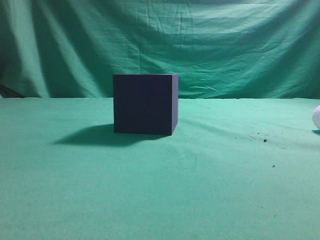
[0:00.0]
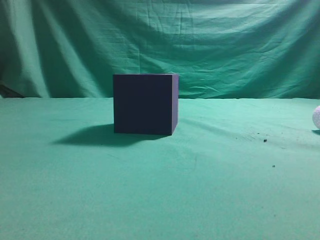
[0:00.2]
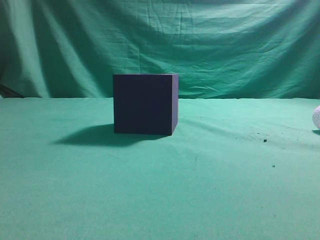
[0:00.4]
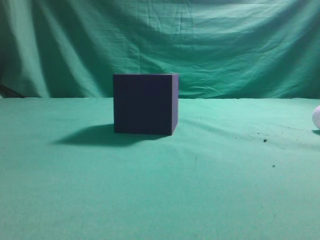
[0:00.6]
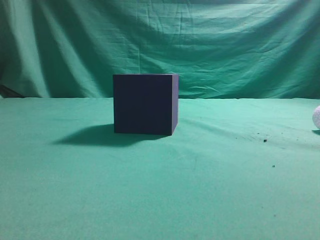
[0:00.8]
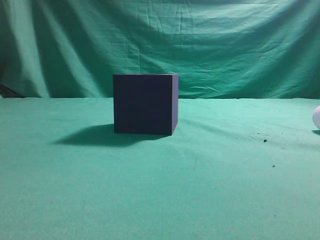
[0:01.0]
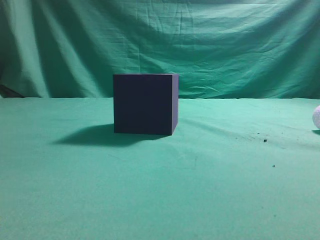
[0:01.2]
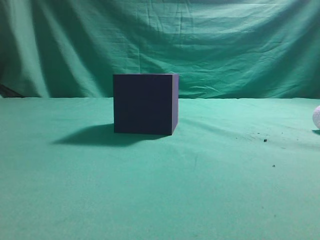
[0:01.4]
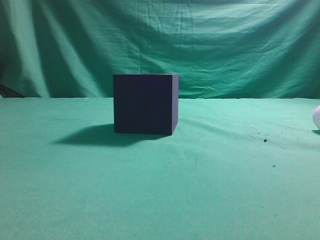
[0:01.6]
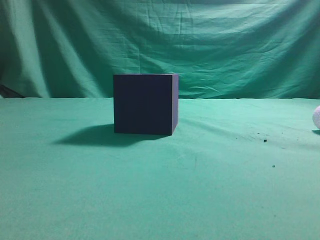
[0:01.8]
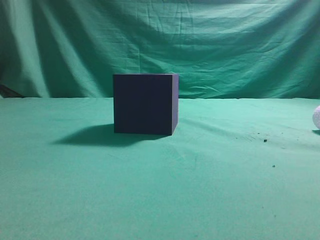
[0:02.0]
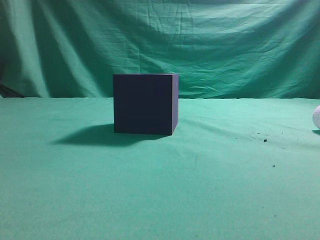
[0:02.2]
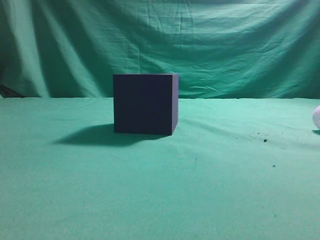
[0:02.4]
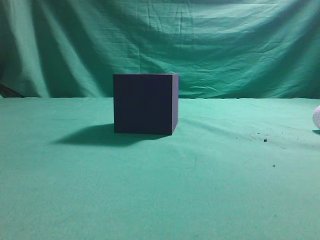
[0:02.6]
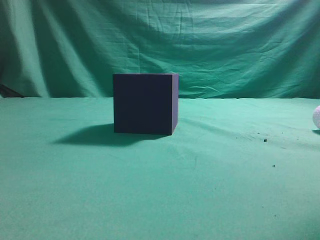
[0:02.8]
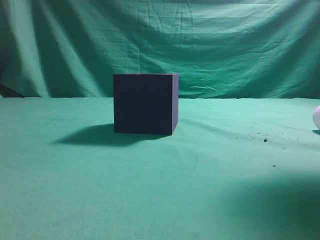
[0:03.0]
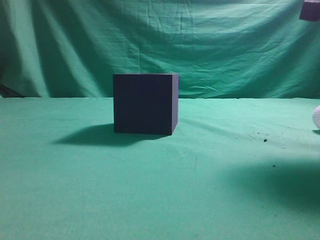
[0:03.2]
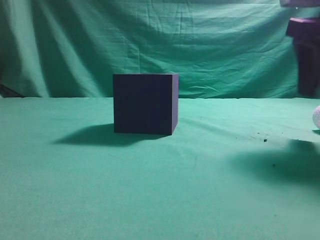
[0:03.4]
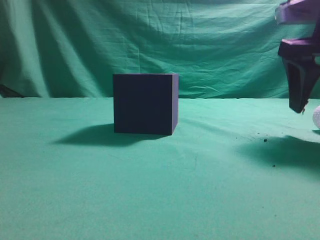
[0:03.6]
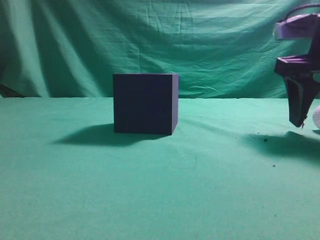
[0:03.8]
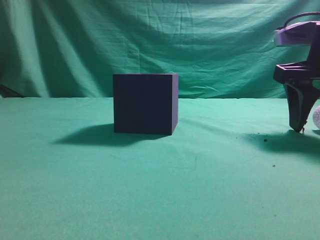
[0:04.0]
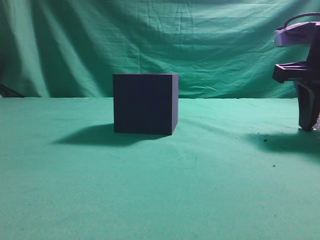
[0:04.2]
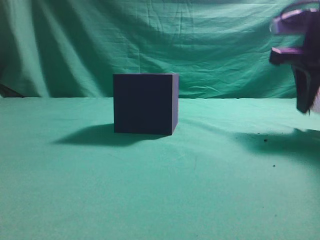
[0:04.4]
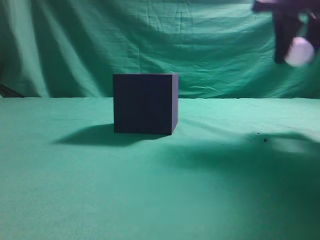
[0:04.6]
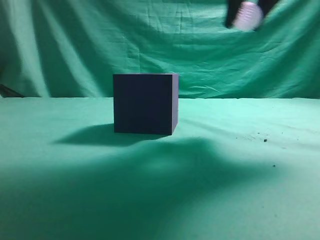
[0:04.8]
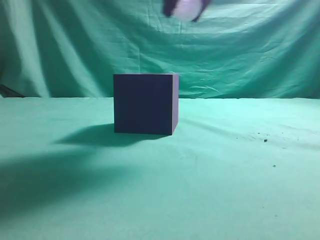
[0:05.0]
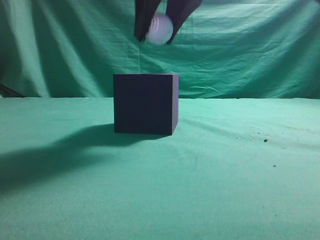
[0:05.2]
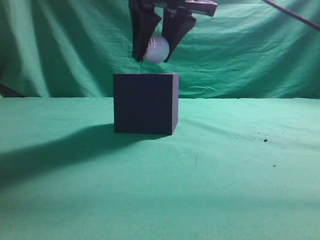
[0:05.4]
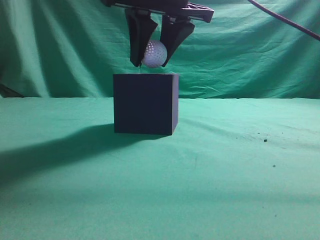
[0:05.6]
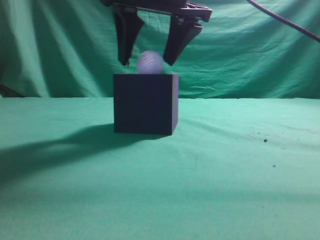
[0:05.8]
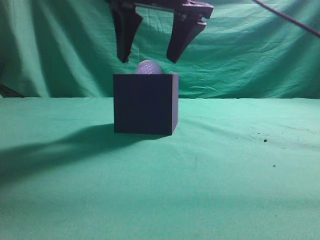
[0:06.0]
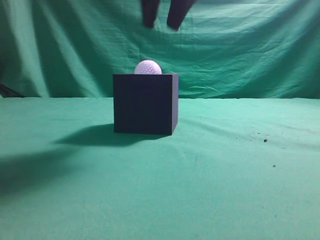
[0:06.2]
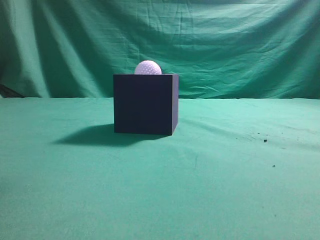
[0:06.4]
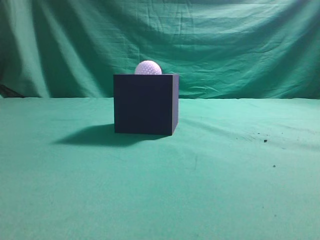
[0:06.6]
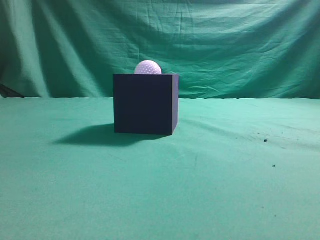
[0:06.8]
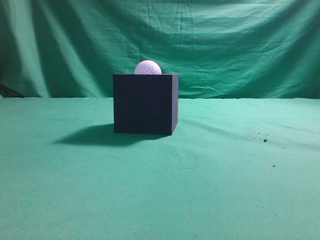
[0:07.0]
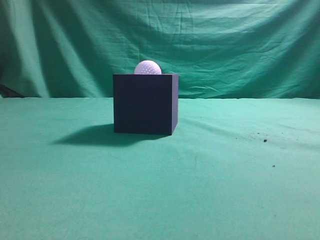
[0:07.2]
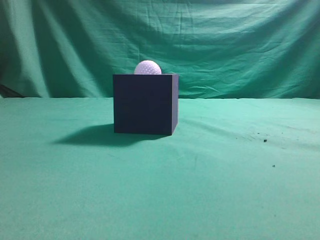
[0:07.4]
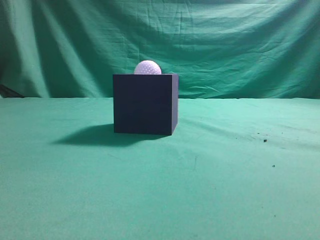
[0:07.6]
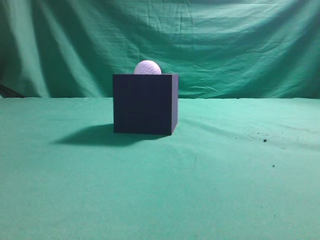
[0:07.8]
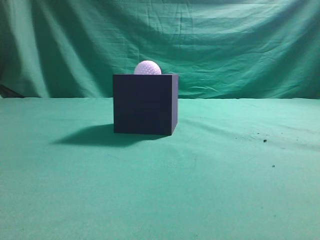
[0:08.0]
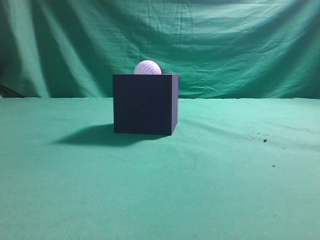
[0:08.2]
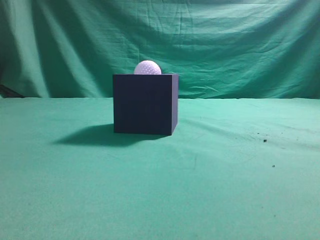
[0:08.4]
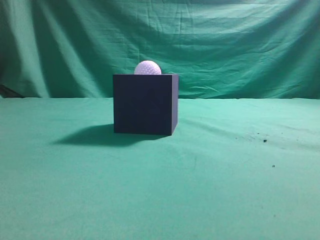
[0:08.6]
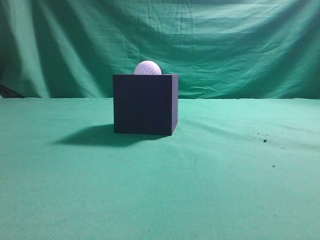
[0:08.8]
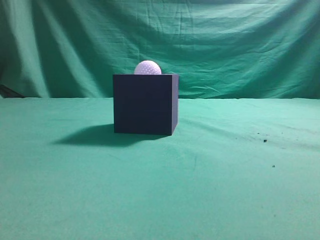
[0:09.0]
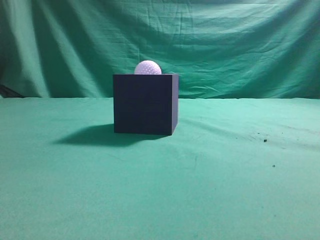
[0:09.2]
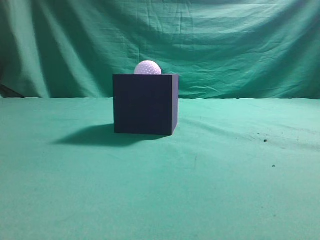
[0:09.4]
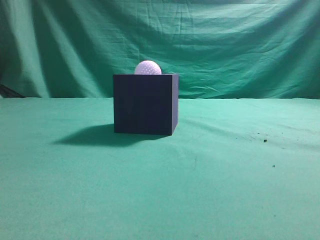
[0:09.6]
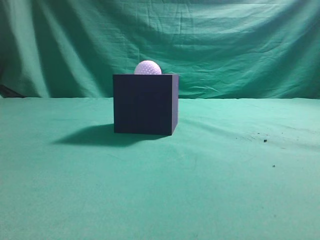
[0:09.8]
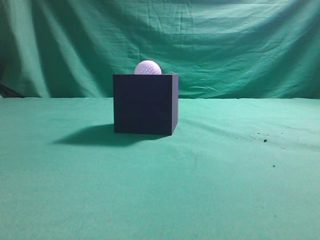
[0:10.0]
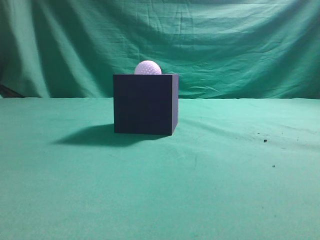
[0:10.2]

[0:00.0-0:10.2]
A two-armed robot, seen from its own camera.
Task of the whole recording: Pick up the ball and place it in the circular groove above the cube.
Step, 0:00.0 to 0:04.4: Grasp the sphere on the table.
Step, 0:04.6 to 0:06.0: Place the sphere into the sphere-shaped recess.
0:01.4 to 0:03.0: The right gripper travels forward by roughly 20 cm.
0:03.0 to 0:04.4: The right gripper goes approximately 10 cm forward and downward, and opens its fingers.
0:04.4 to 0:05.8: The right gripper is displaced to the left by some 20 cm, and opens its fingers.
0:05.8 to 0:07.2: The right gripper travels backward, to the right and upward by roughly 30 cm, and closes its fingers.
